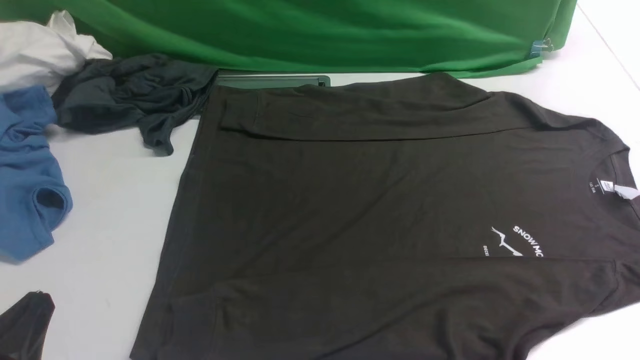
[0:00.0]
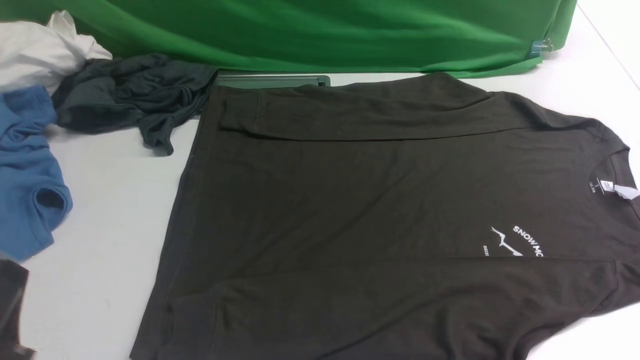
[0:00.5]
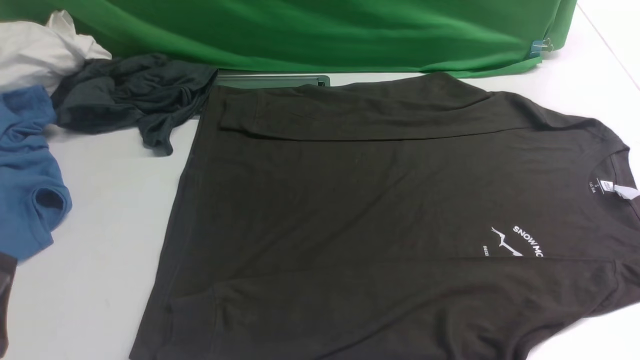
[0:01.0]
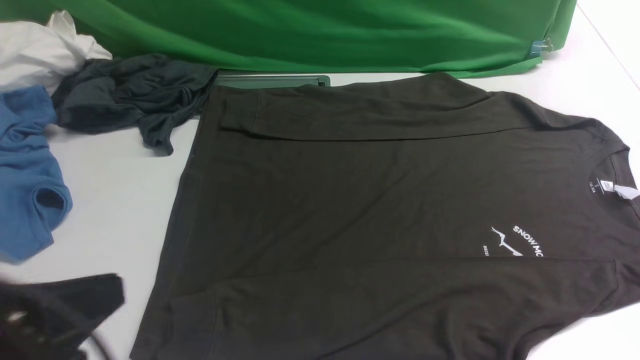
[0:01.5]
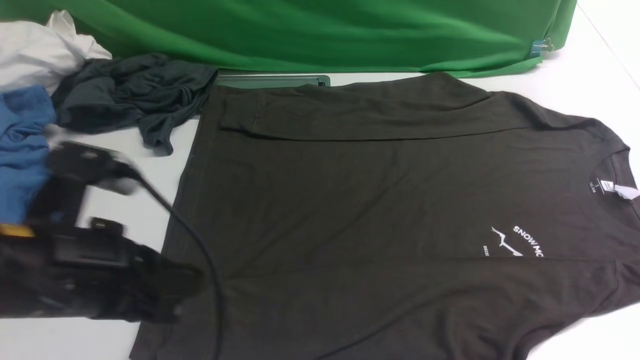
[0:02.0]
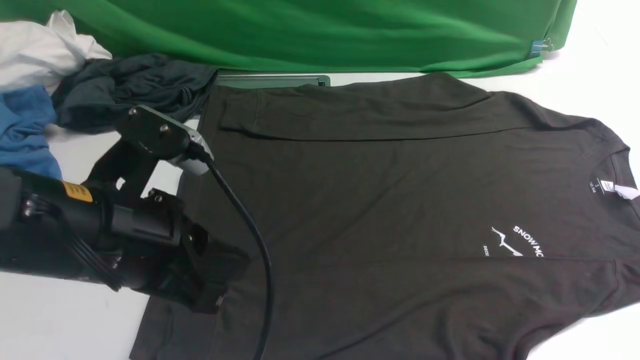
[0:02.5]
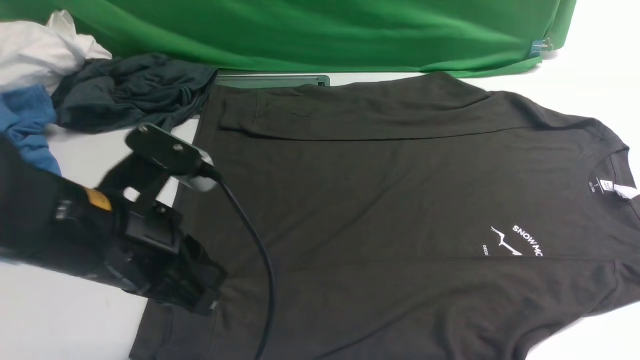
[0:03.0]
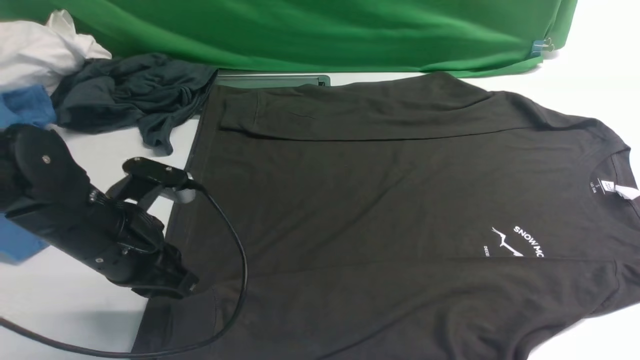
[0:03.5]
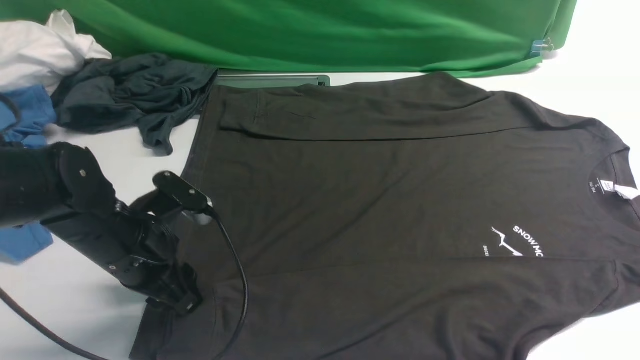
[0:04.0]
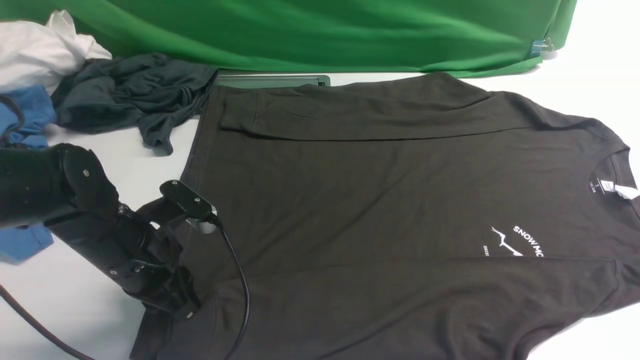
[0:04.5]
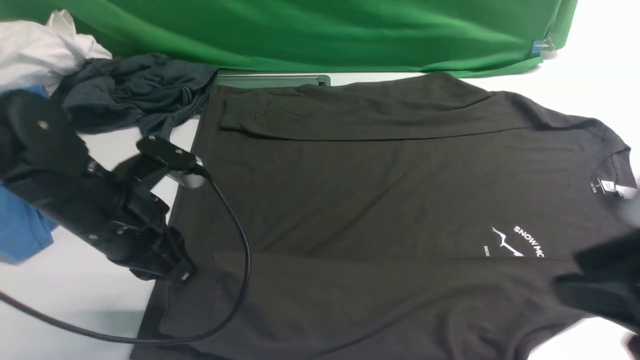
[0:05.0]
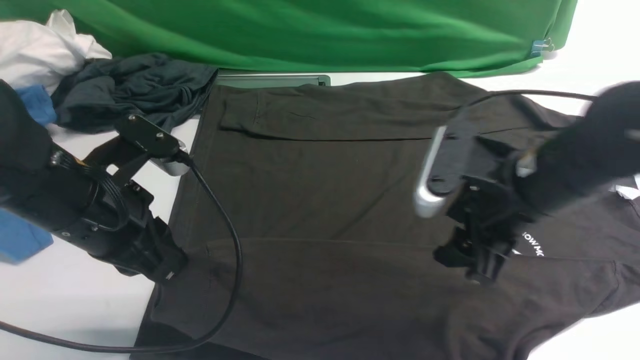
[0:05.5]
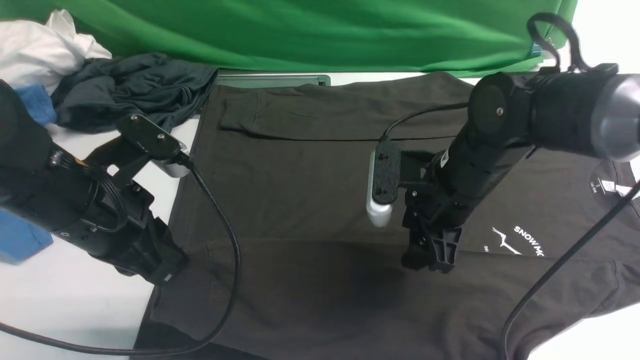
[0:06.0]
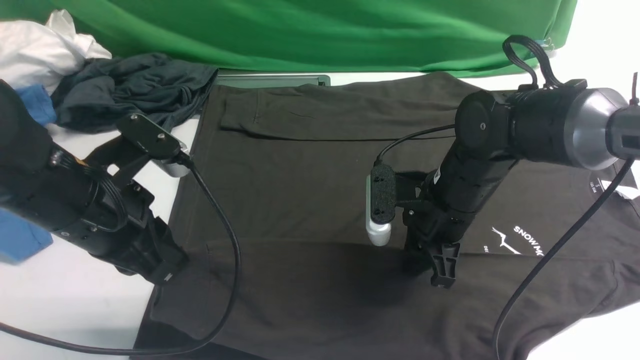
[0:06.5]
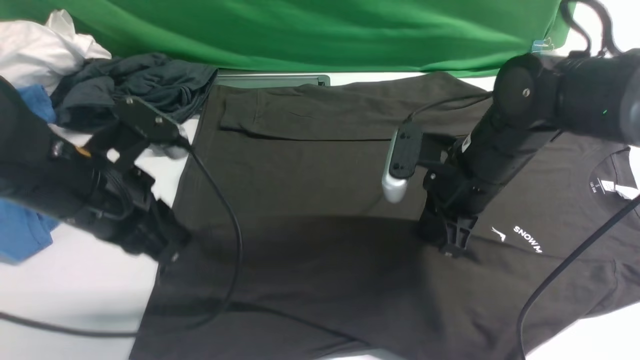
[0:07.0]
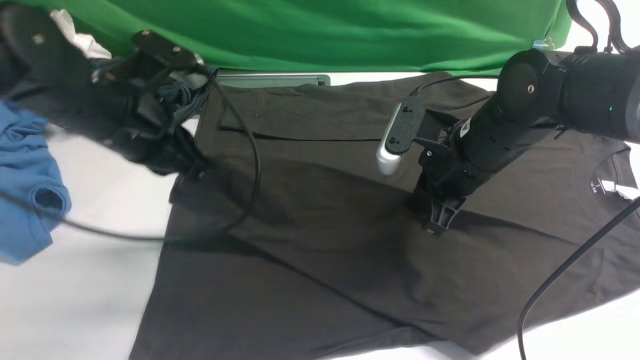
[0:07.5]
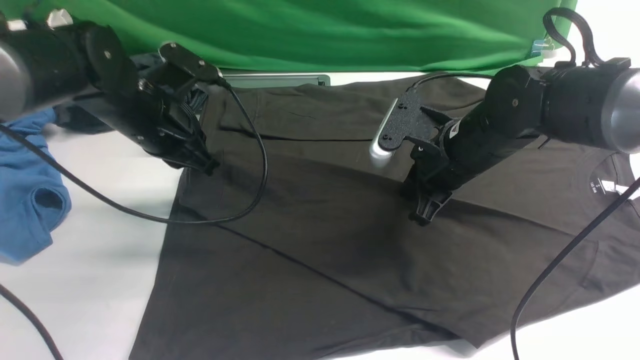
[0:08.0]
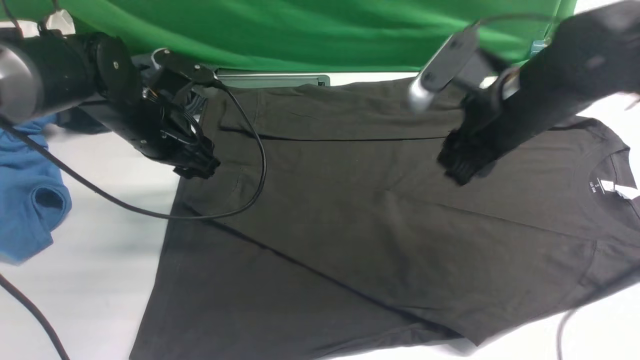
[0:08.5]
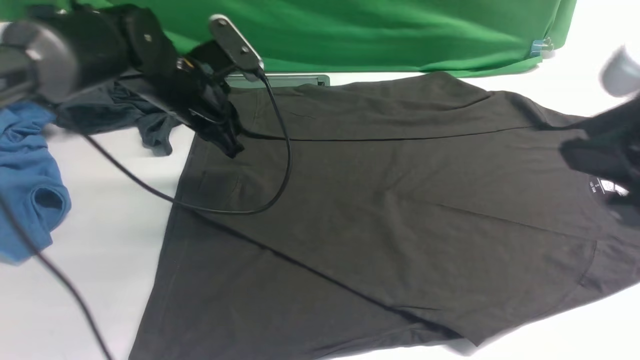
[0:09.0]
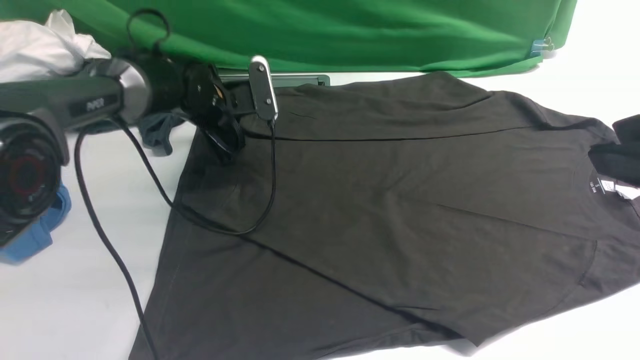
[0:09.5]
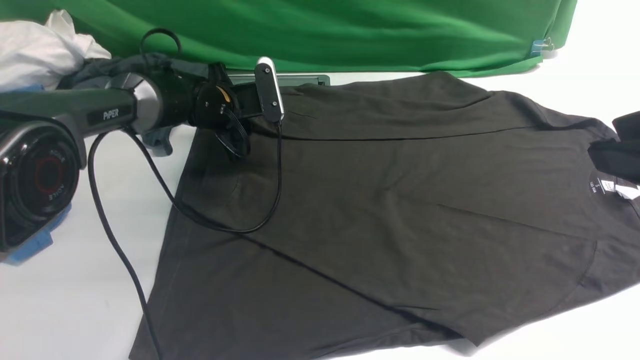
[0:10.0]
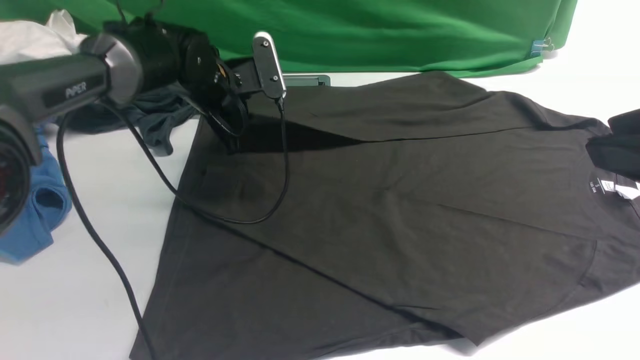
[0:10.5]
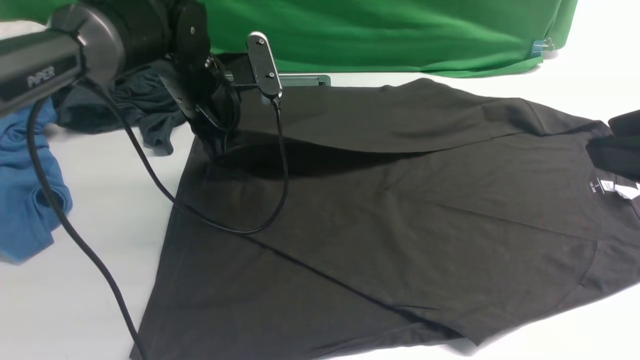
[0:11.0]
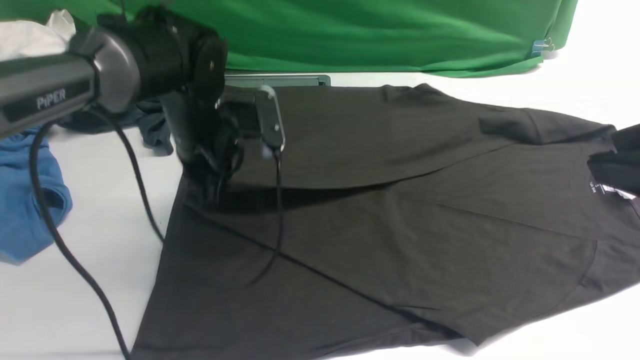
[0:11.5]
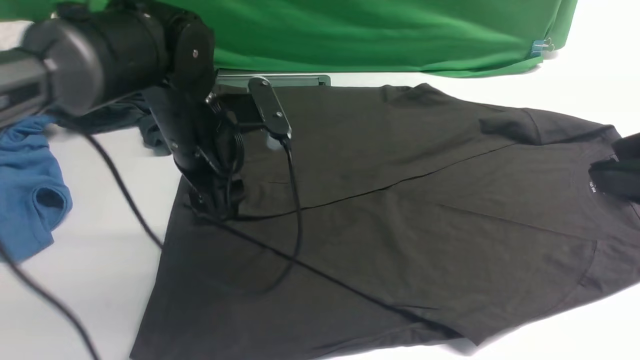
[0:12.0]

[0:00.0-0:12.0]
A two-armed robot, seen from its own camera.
Step, 0:00.0 to 0:05.0: use the left arm to clamp the cuff closest to it.
Step, 0:05.5 to 0:08.0: use the left arm to drag and place the cuff at the centered position on the left edge of the fabric.
Step, 0:08.5 to 0:10.0: use the left arm to clamp the cuff farthest from it.
Step, 0:10.5 to 0:11.5: use the left arm to drag and drop the cuff onto the cuff closest to the left arm.
0:00.0 to 0:02.0: The left gripper is displaced forward, upward and to the right by some 15 cm.
0:02.0 to 0:04.0: The left gripper heads downward and forward, covering some 15 cm, and opens.
0:04.0 to 0:06.0: The right gripper goes approximately 35 cm forward, downward and to the left, and opens up. Meanwhile the left gripper shifts about 10 cm upward, and closes its fingers.
0:06.0 to 0:08.0: The right gripper closes up, while the left gripper shifts about 15 cm forward.
0:08.0 to 0:10.0: The right gripper travels backward, upward and to the right by roughly 30 cm. The left gripper is displaced forward and downward by approximately 15 cm, and opens, then closes again.
0:10.0 to 0:12.0: The left gripper travels backward and upward by about 20 cm, and opens its fingers.

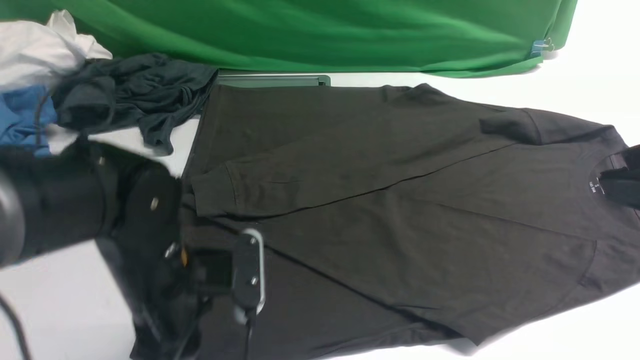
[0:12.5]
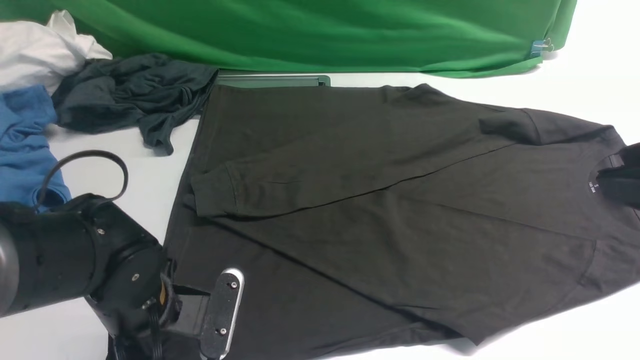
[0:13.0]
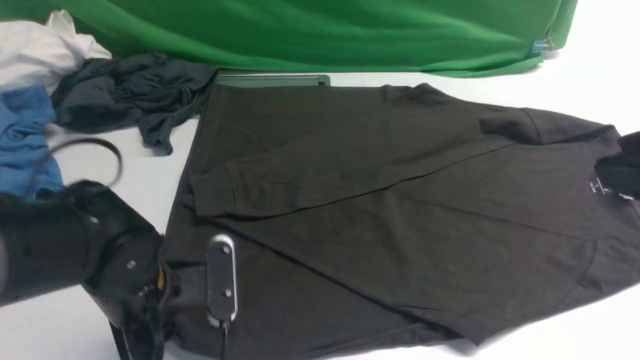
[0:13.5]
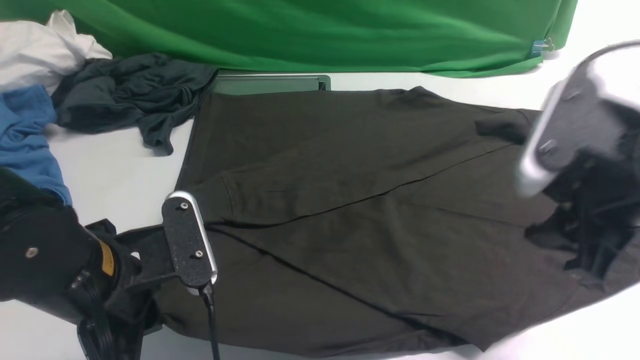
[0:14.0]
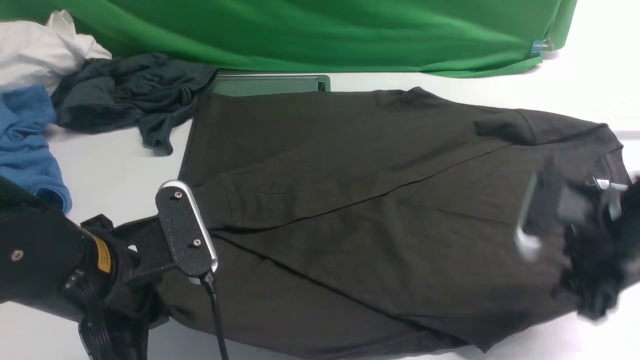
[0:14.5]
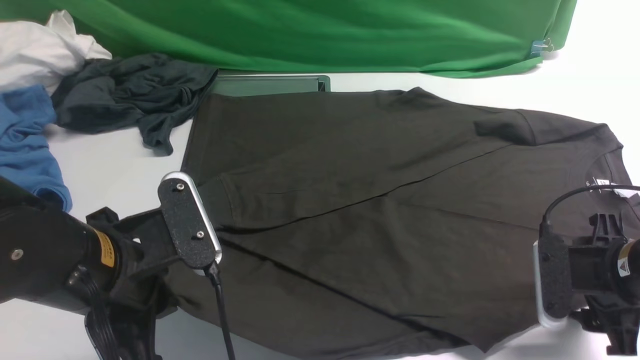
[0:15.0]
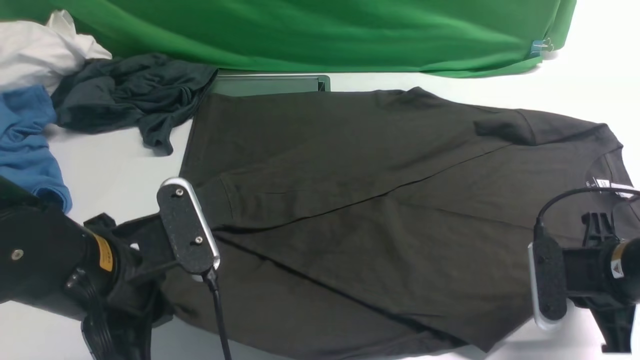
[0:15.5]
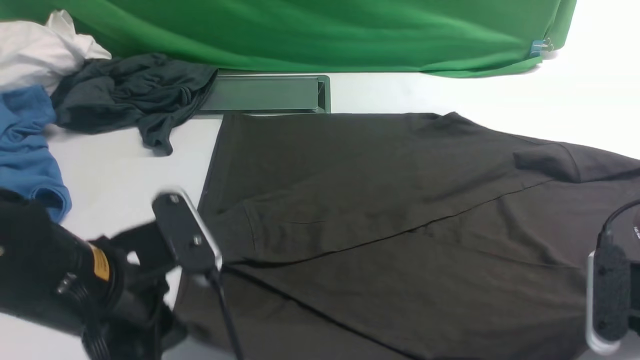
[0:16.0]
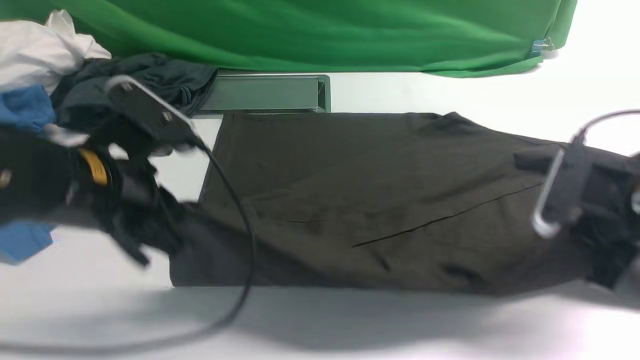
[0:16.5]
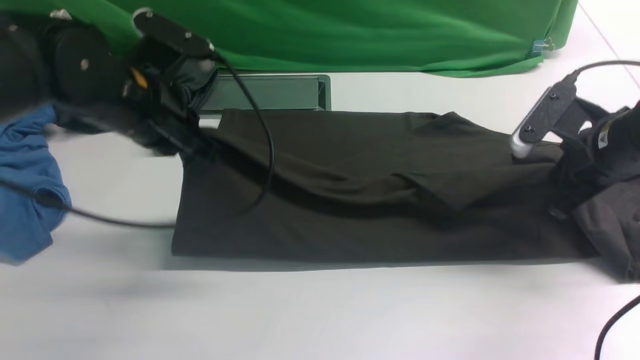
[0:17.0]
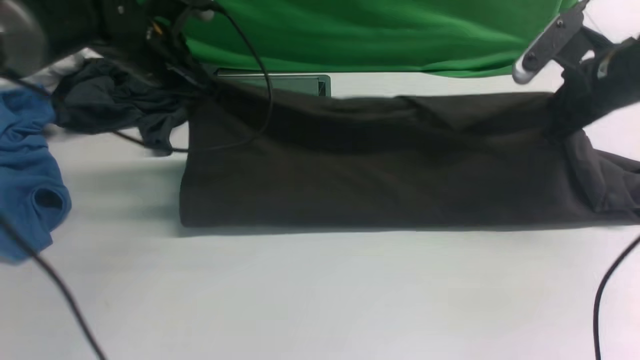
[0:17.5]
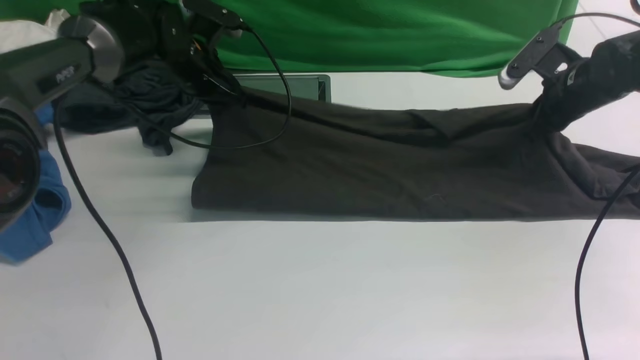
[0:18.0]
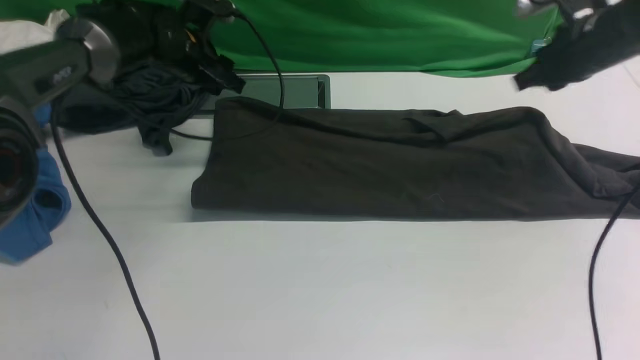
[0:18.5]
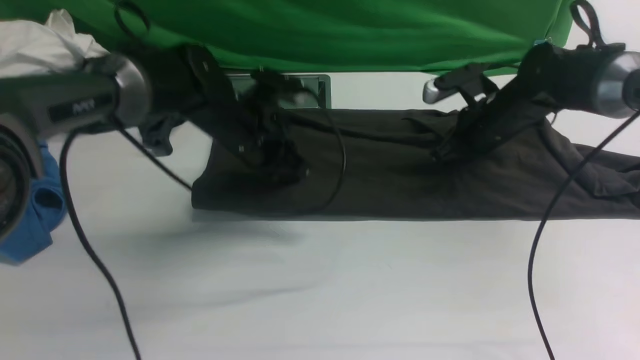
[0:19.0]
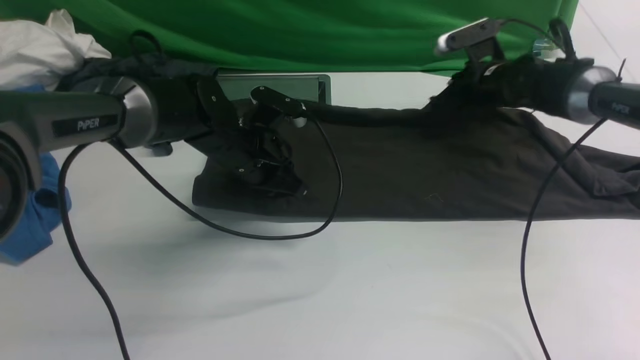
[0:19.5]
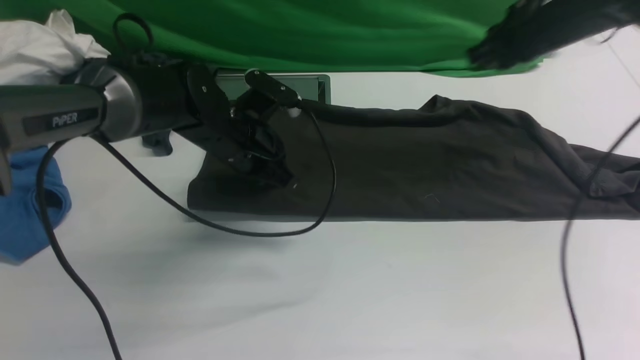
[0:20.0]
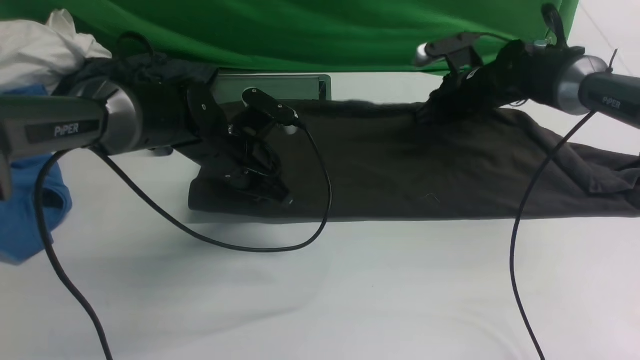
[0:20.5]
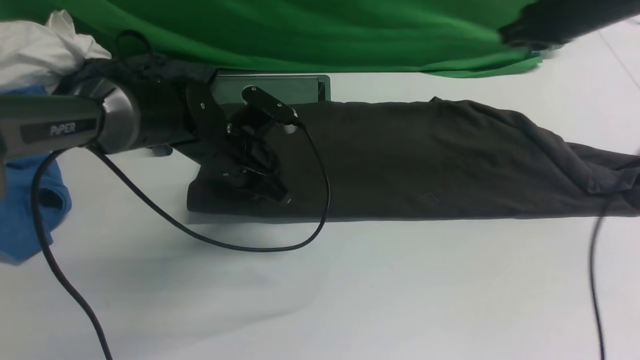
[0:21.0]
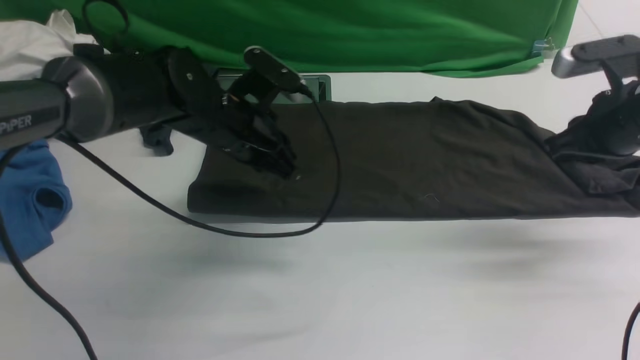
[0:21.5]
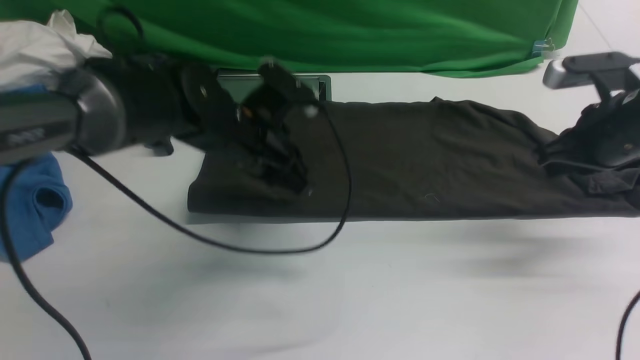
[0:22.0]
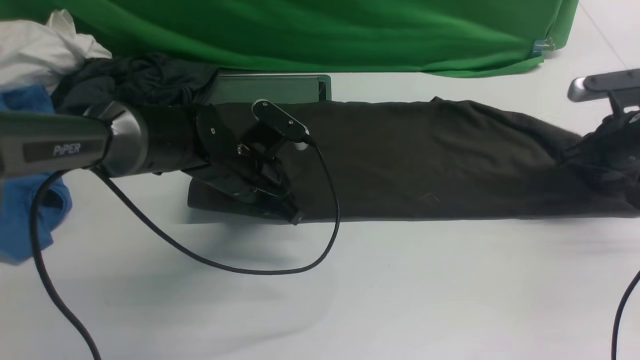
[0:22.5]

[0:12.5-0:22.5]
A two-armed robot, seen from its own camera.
Step, 0:12.5 to 0:15.5: use both arms simultaneously to clamp the lower edge of the clothing fabric.
Step, 0:16.0 to 0:18.5: use both arms to drag the lower edge of the fabric forward and fold it over the upper edge.
0:12.5 to 0:14.5: The left gripper goes some 5 cm upward, and closes its fingers. The right gripper goes some 20 cm downward and forward, and opens.
0:14.5 to 0:16.5: The left gripper is displaced forward by some 5 cm. The right gripper travels backward and back again, about 5 cm each way, and closes its fingers.
0:16.5 to 0:18.5: Both grippers move forward, about 20 cm. The left gripper opens its fingers.
0:18.5 to 0:20.5: The right gripper travels forward, downward and to the left by roughly 10 cm. The left gripper heads backward, downward and to the right, covering some 15 cm, and closes.
0:20.5 to 0:22.5: The right gripper shifts about 20 cm to the right and backward.
